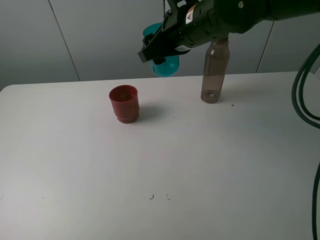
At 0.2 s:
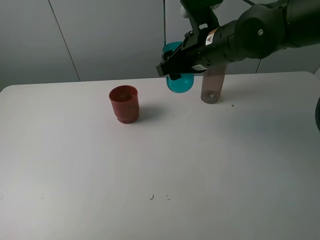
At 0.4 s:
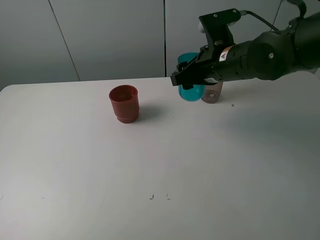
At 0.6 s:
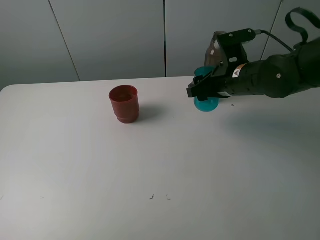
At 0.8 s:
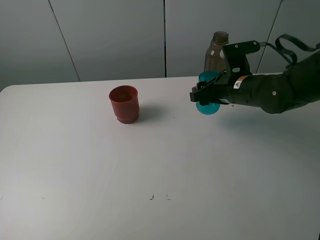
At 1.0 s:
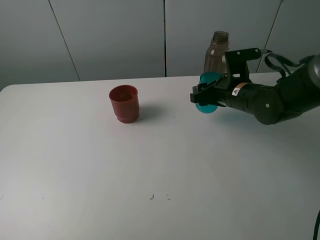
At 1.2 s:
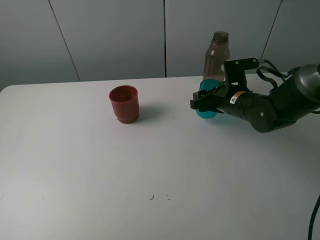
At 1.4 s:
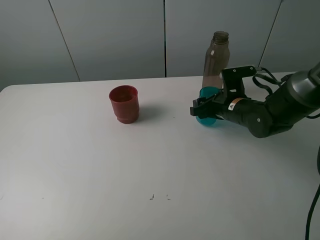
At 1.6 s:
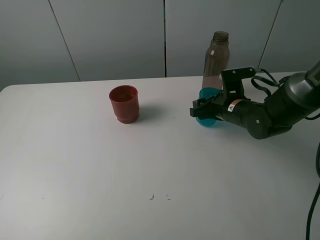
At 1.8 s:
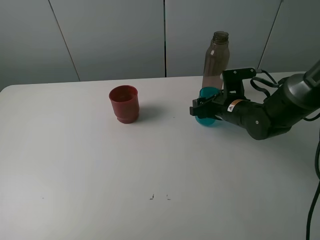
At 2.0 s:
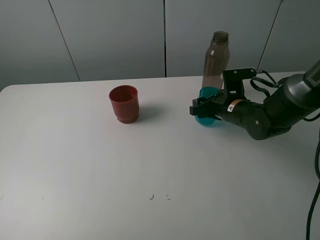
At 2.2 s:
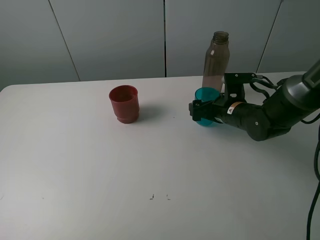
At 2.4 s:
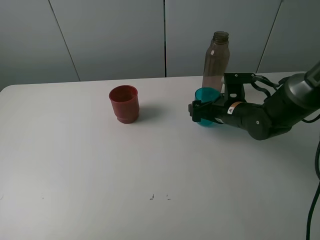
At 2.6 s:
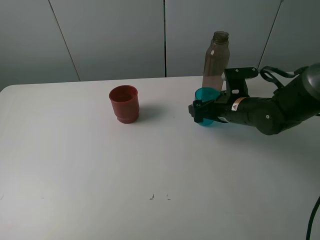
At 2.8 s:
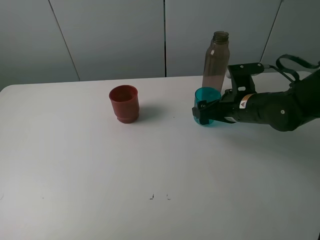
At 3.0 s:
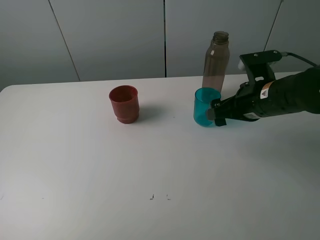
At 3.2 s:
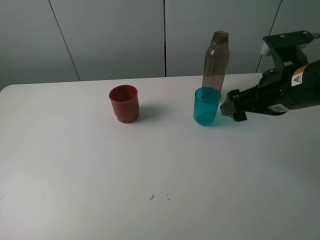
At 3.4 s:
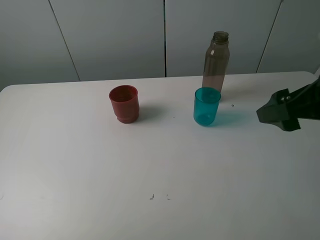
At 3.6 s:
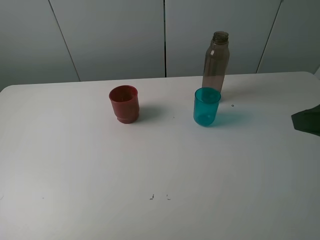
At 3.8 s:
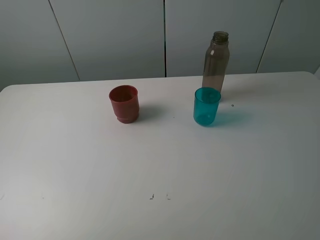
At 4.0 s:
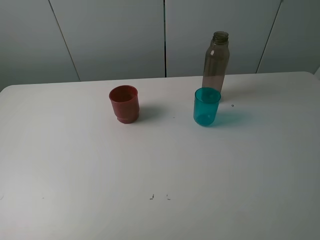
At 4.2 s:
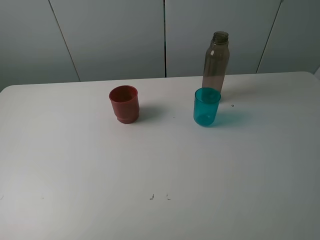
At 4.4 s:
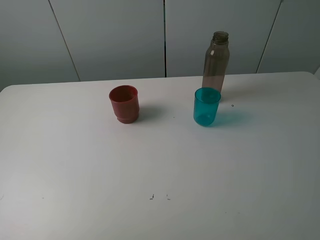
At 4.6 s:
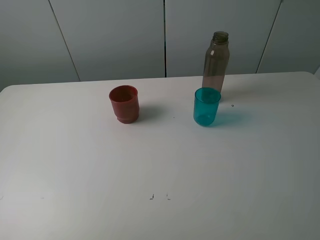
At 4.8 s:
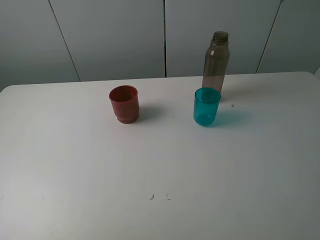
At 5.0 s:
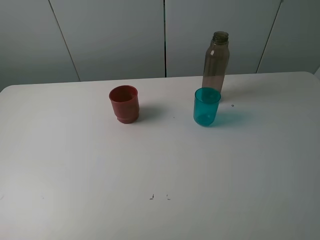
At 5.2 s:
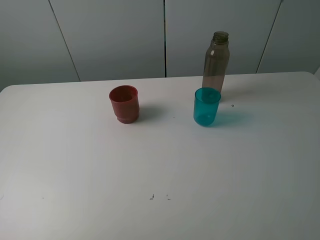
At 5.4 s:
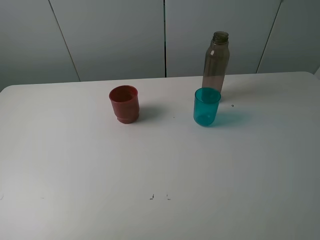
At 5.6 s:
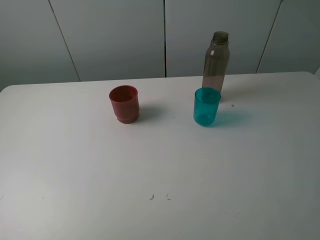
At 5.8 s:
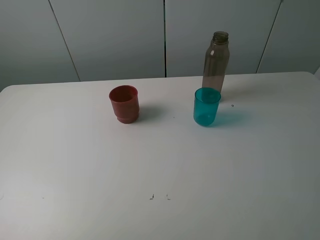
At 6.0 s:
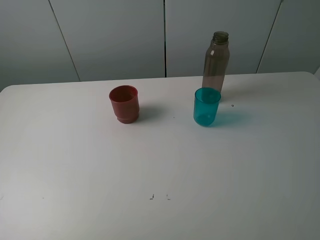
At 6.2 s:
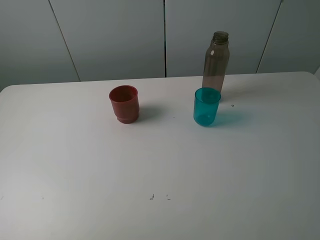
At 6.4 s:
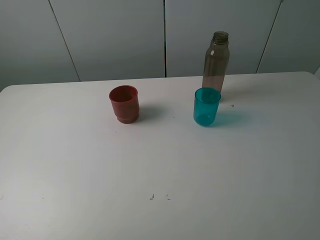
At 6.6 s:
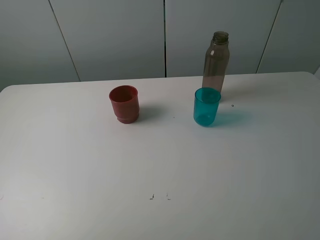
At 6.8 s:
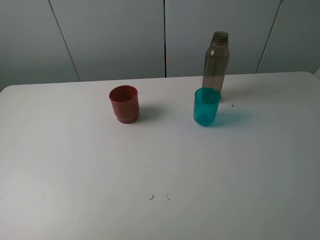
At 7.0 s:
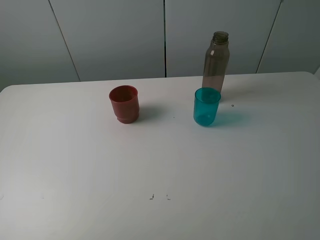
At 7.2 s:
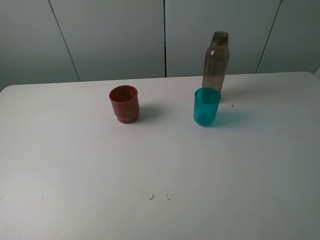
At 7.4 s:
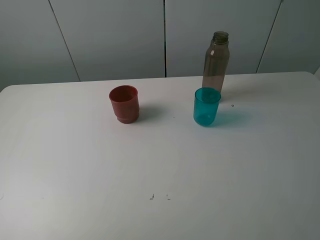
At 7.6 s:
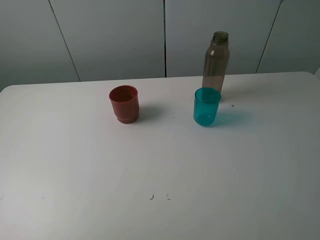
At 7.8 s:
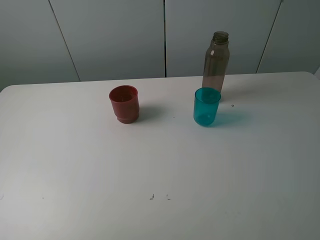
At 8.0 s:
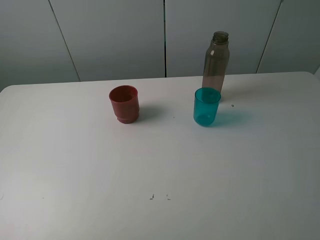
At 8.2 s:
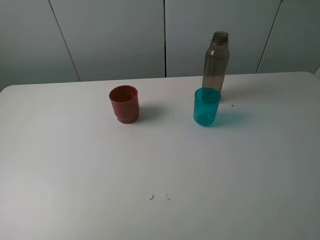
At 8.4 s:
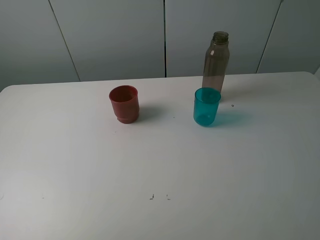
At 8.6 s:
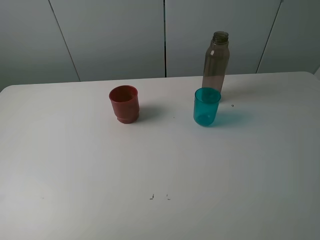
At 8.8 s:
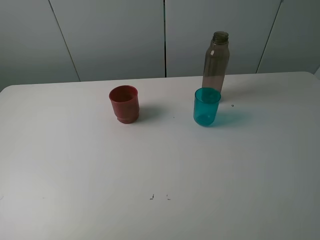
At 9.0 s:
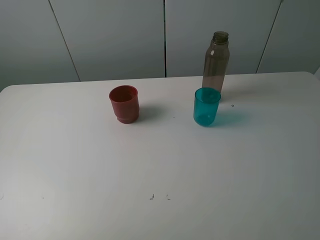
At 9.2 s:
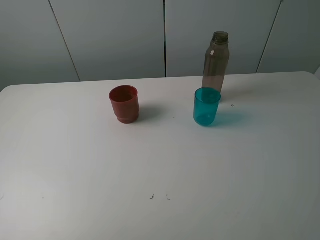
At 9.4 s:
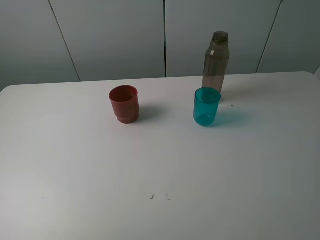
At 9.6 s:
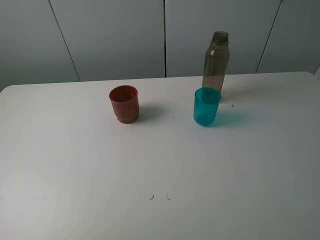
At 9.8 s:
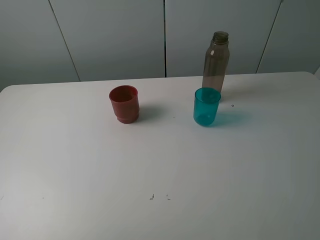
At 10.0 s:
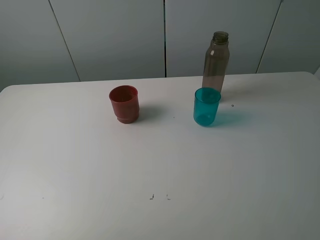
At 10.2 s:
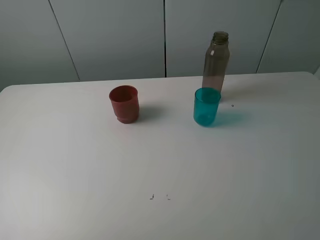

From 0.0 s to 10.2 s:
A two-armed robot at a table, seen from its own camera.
Task of the whole recording: pick up the bottle and pour water into the cup, then pick up the cup containing water and pour it into another cup.
Step, from 0.0 s to 2.0 s: Place the blue cup with the right gripper.
From 0.0 s to 1.4 s: The right gripper goes roughly 20 cm downward and to the right.
From 1.4 s to 3.0 s: The right gripper goes roughly 10 cm upward and backward, and opens.
From 3.0 s to 4.4 s: The right gripper is displaced backward, upward and to the right by some 30 cm.
From 5.8 s to 10.2 s: Both grippers stay about where they are.
